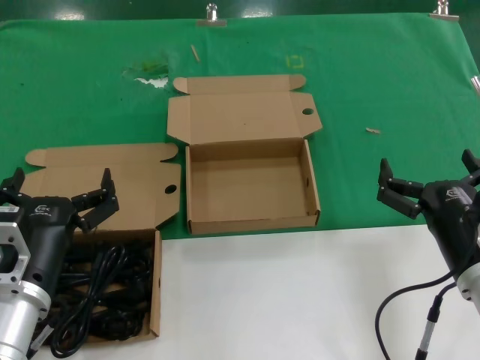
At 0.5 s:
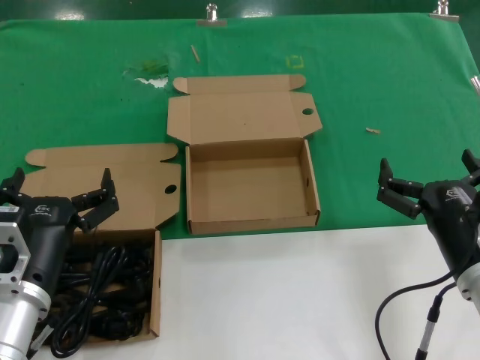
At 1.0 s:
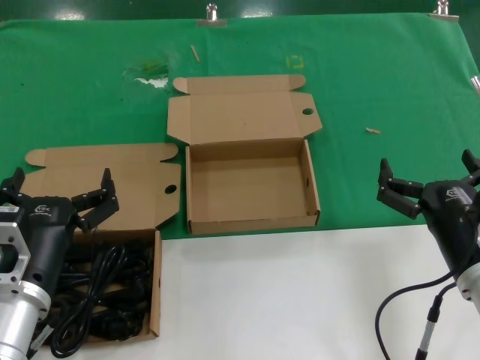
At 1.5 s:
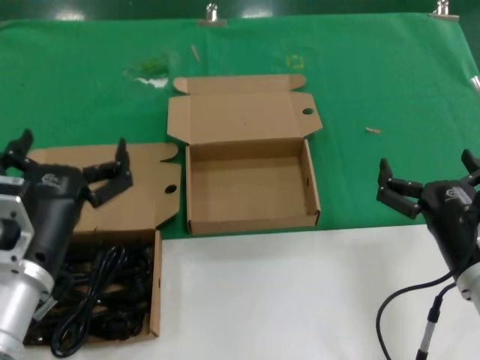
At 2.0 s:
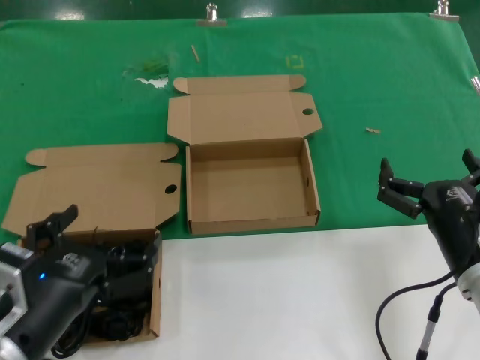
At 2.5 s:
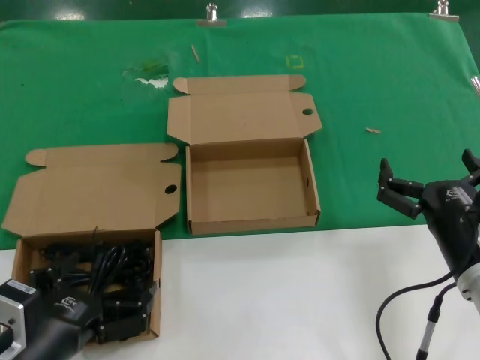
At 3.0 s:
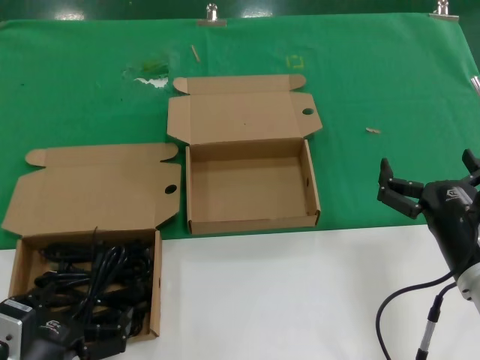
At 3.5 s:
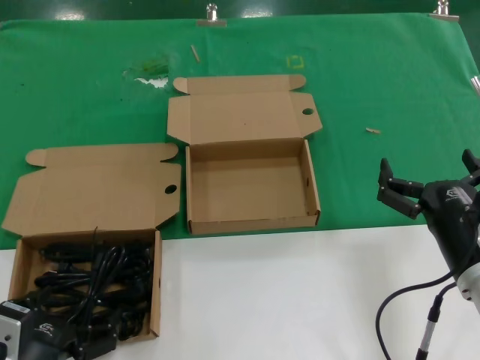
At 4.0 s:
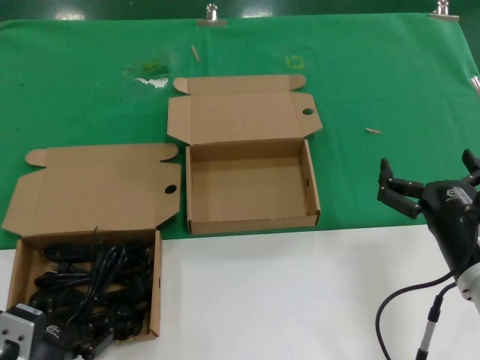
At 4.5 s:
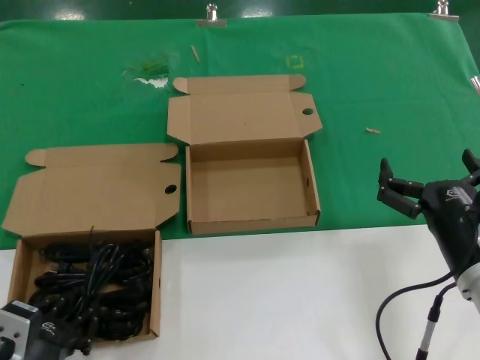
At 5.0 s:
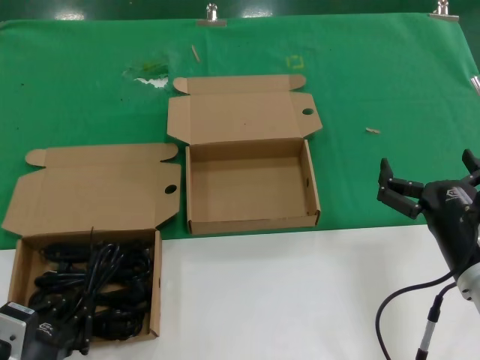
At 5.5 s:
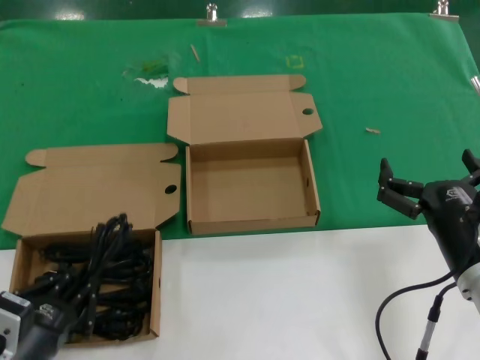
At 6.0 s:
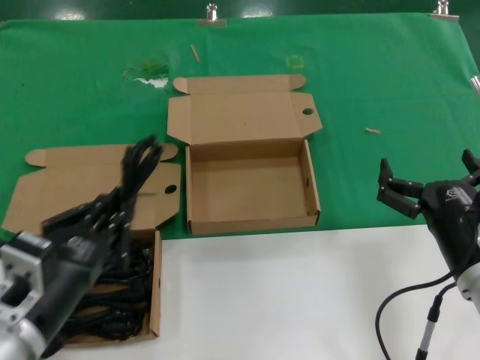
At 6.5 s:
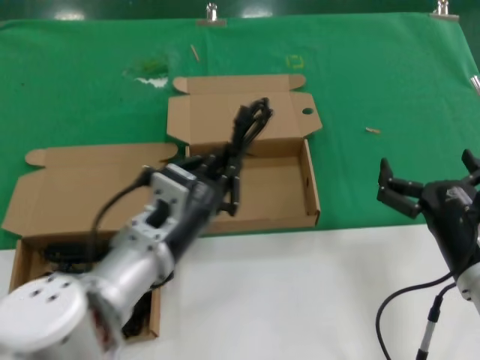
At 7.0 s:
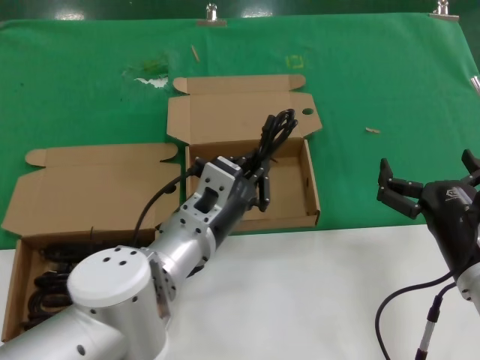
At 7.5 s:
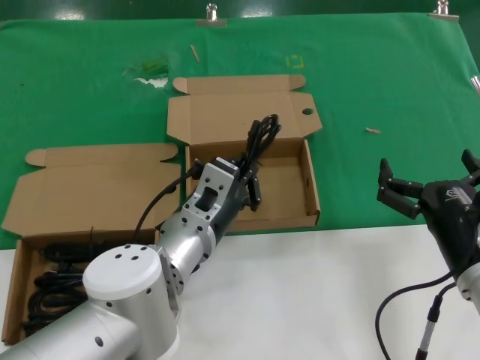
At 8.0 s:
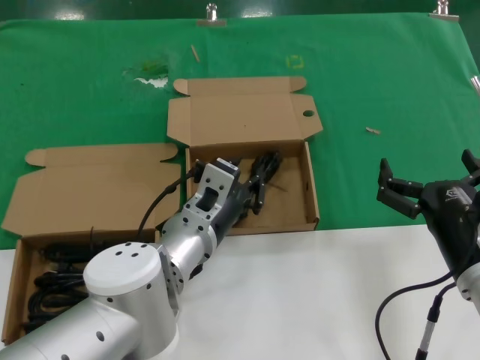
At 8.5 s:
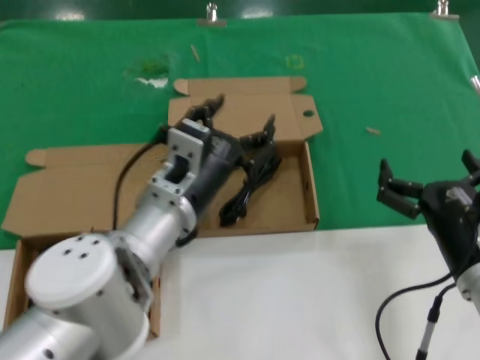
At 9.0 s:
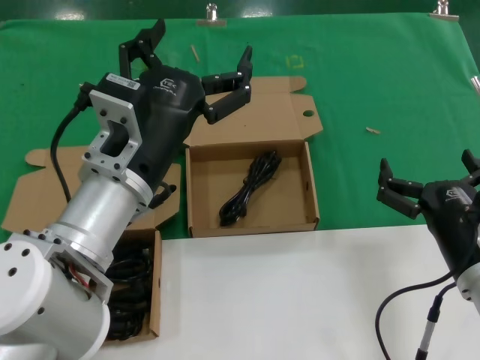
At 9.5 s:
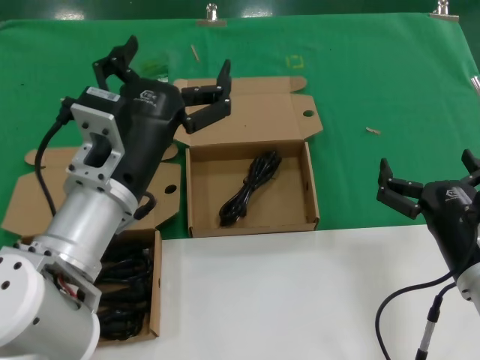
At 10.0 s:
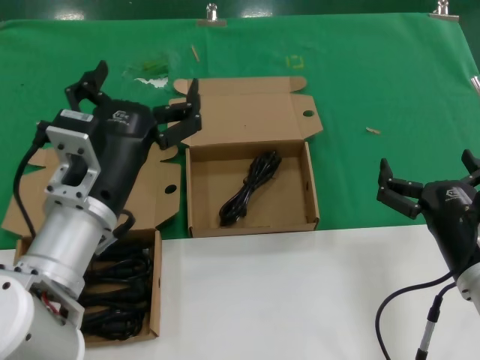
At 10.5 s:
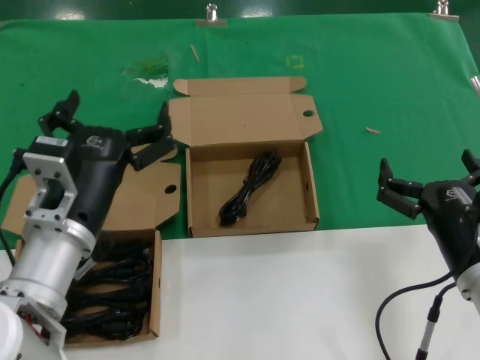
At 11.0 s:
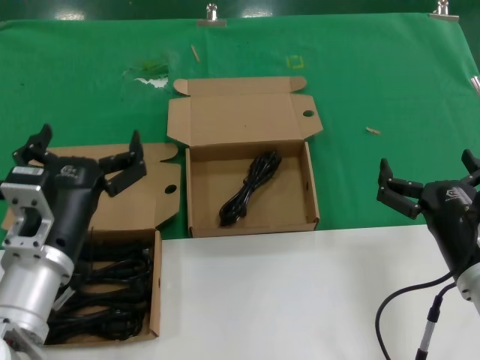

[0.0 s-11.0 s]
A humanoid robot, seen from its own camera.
Task of the whole recording: Pick up the power cord from the box containing it and place it in another box.
Step, 0.0 to 5.0 s: Grasp the data cable.
Step, 5.5 to 8.0 s: Place the data cable in the another box.
0.0 to 2.0 s: The left hand heads backward, covering about 5 cm.
2.0 to 3.5 s: The left hand goes roughly 5 cm downward.
3.5 to 5.5 s: The hands stay close to where they were, moving slightly.
5.5 to 7.5 s: The left hand moves to the right and forward, about 25 cm.
7.5 to 9.0 s: The left hand shifts approximately 10 cm upward and to the left.
9.0 to 11.0 s: The left hand heads downward and to the left, covering approximately 10 cm.
